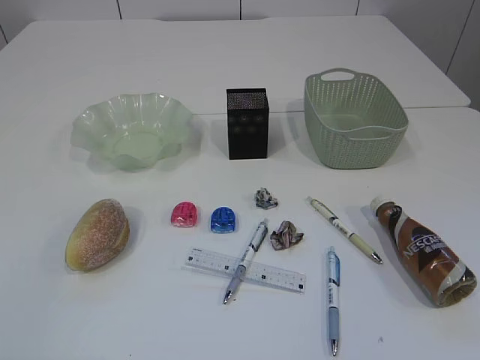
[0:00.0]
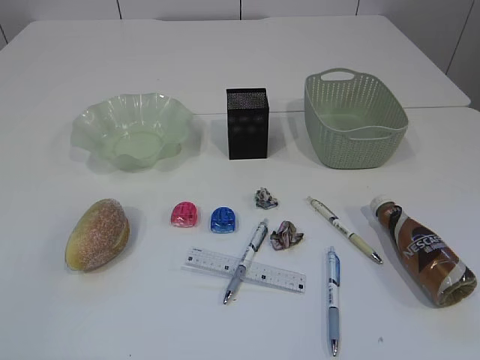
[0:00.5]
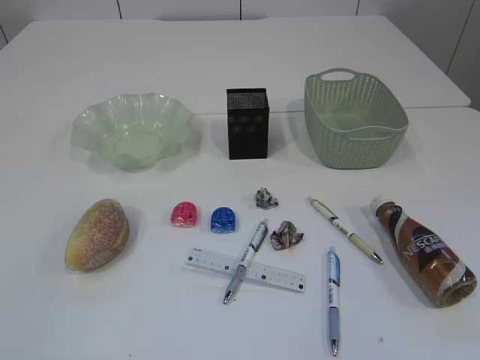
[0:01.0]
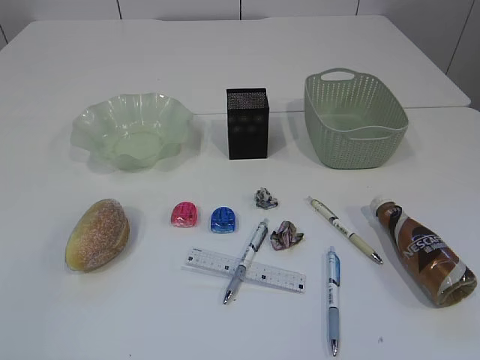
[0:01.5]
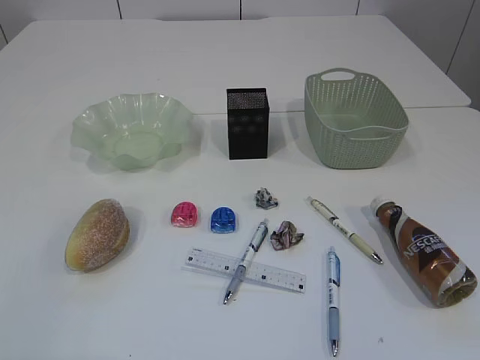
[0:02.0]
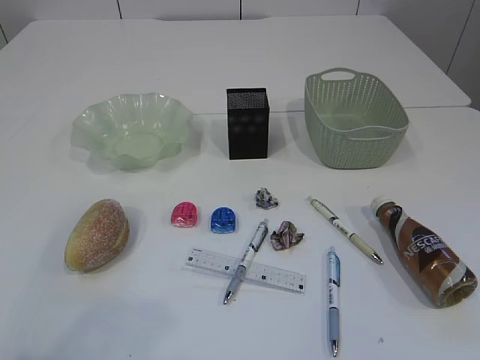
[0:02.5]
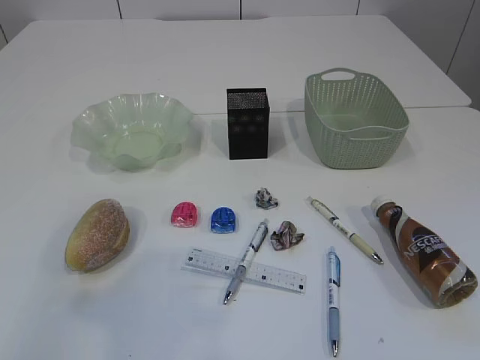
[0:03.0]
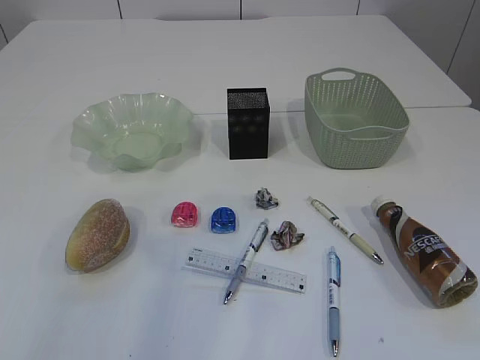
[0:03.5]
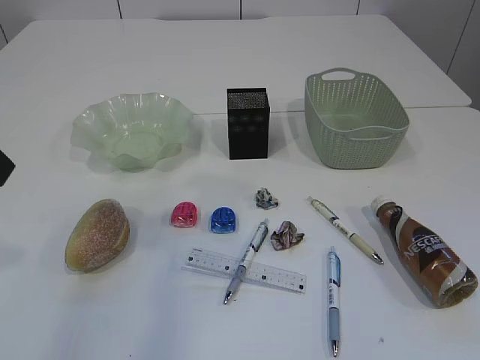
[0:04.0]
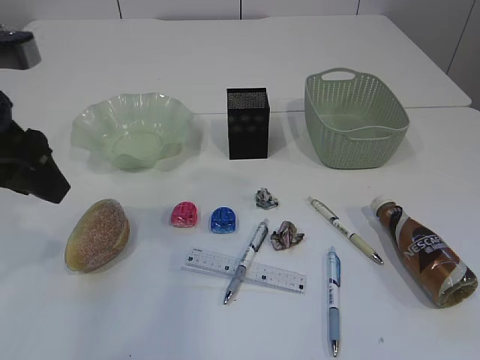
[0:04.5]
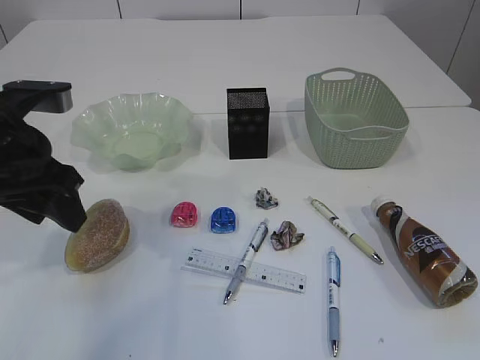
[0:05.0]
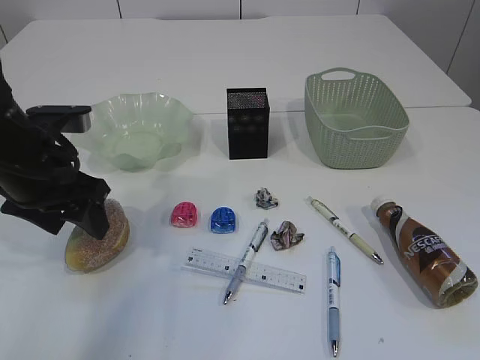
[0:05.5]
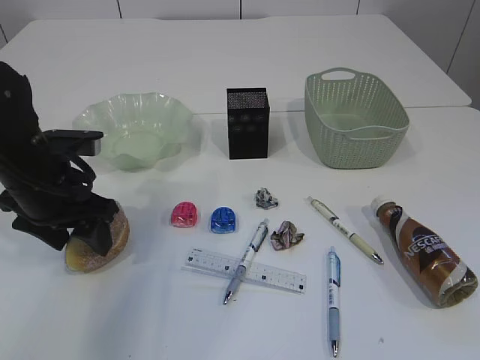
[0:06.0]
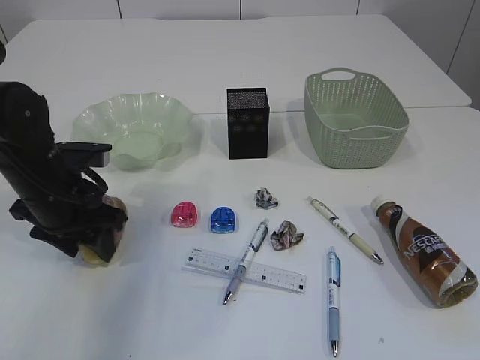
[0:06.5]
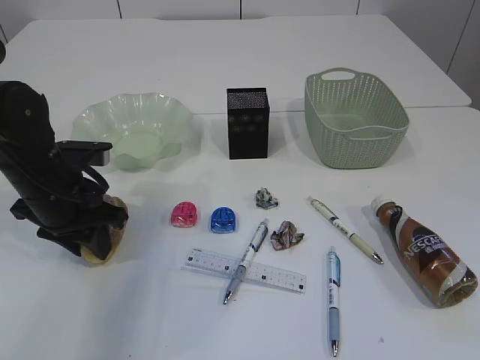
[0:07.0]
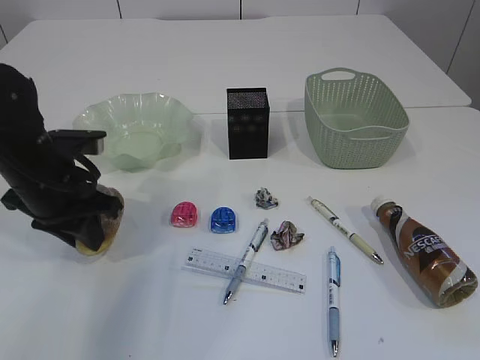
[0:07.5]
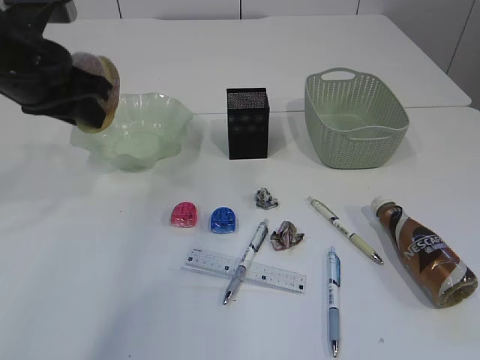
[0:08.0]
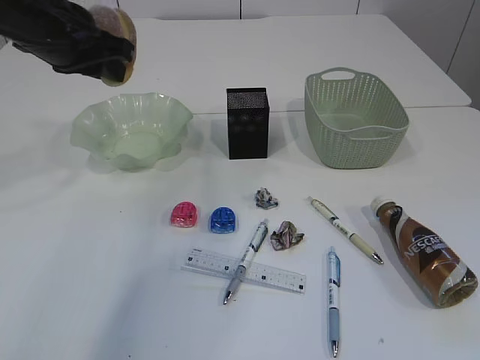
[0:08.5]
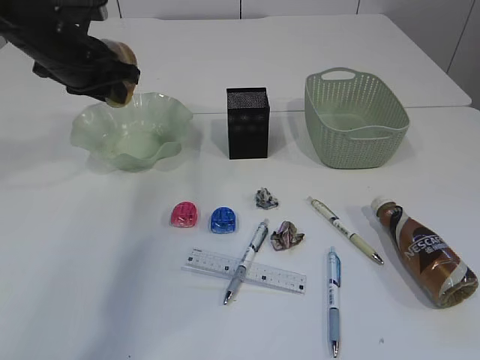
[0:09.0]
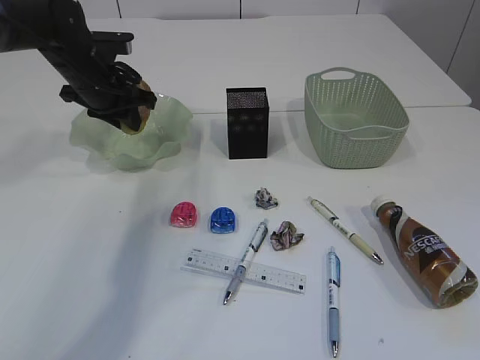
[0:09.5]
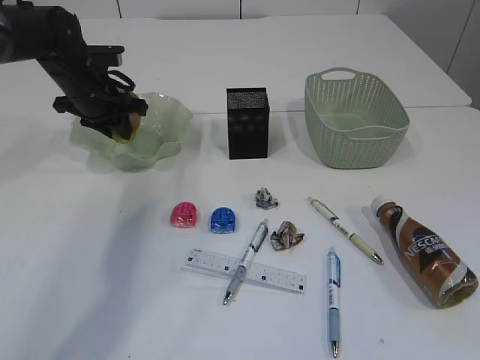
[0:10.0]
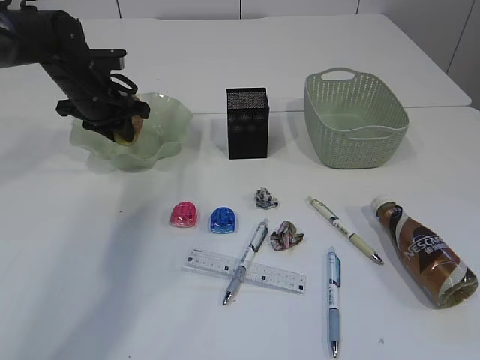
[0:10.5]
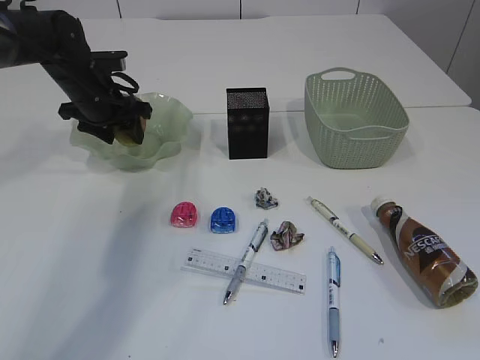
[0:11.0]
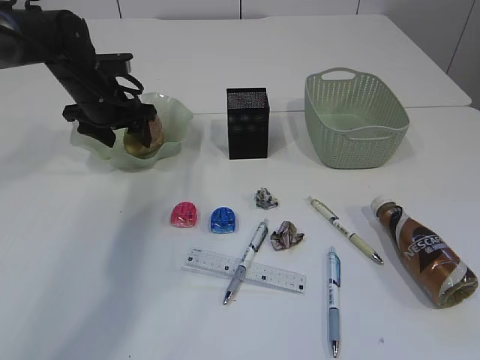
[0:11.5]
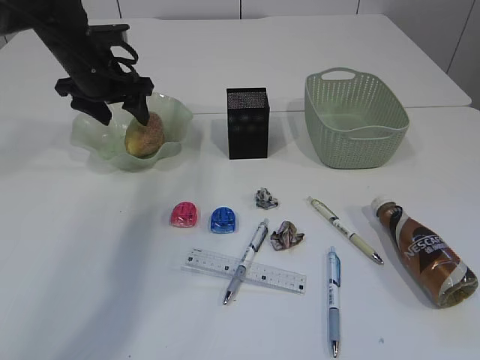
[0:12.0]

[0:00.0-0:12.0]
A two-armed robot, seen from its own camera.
0:02.0 to 0:04.0: The left gripper moves forward, some 25 cm.
0:04.0 to 0:06.0: The left gripper is displaced downward and forward by about 20 cm.
0:06.0 to 0:08.0: The left gripper is displaced upward by roughly 10 cm, and closes up.
0:08.0 to 0:10.0: The left gripper moves forward and downward, approximately 20 cm.
0:10.0 to 0:12.0: The left gripper opens.

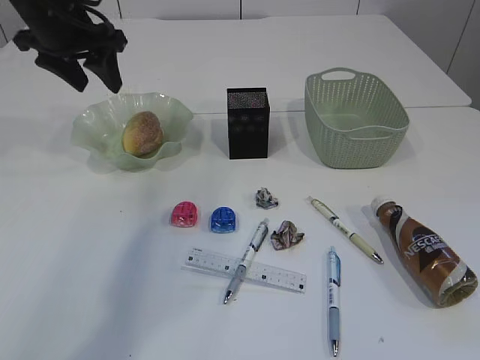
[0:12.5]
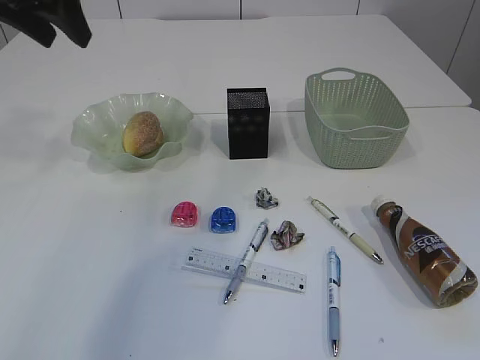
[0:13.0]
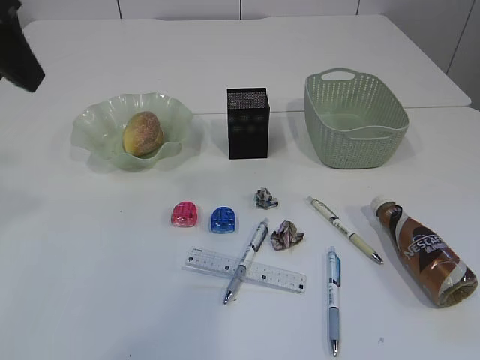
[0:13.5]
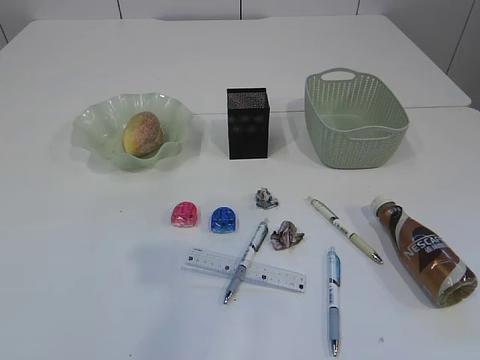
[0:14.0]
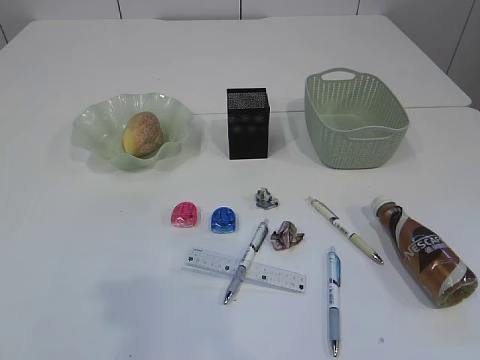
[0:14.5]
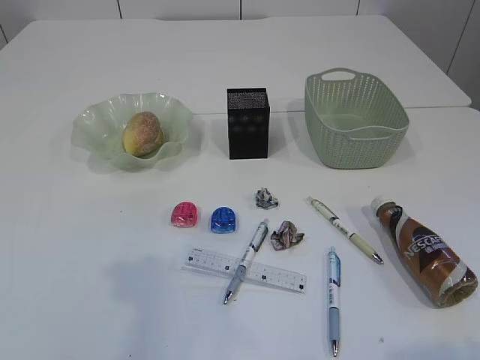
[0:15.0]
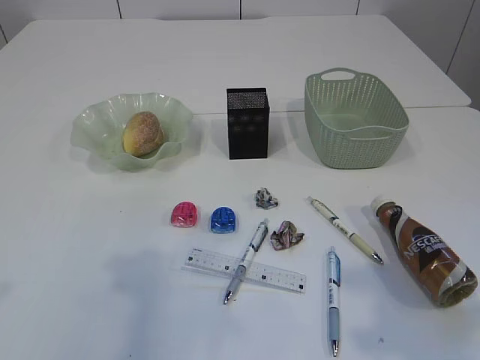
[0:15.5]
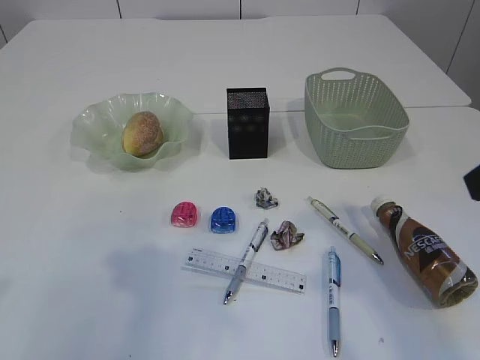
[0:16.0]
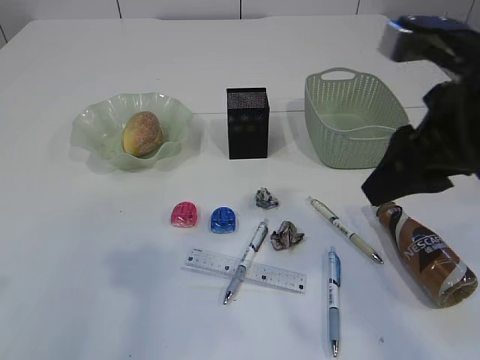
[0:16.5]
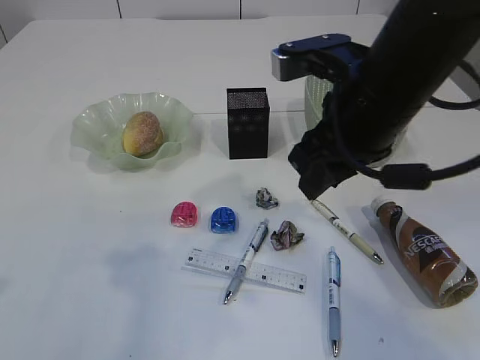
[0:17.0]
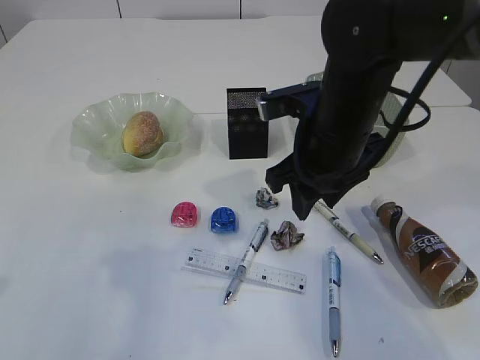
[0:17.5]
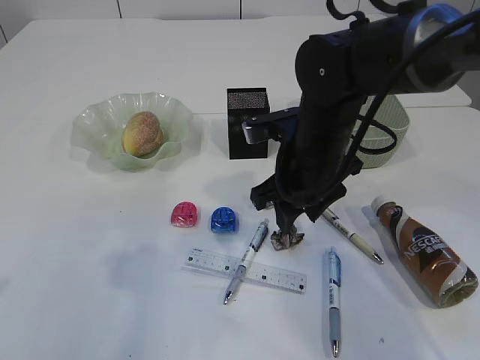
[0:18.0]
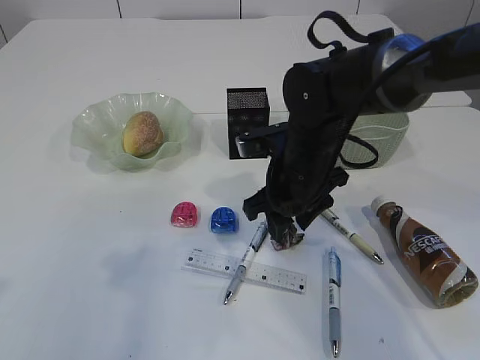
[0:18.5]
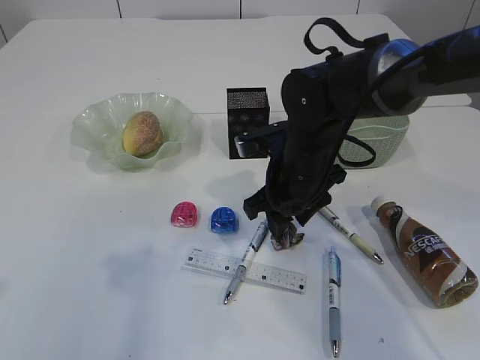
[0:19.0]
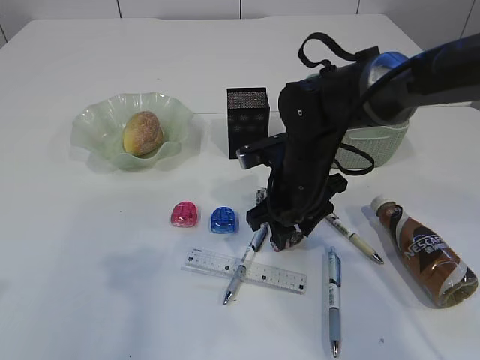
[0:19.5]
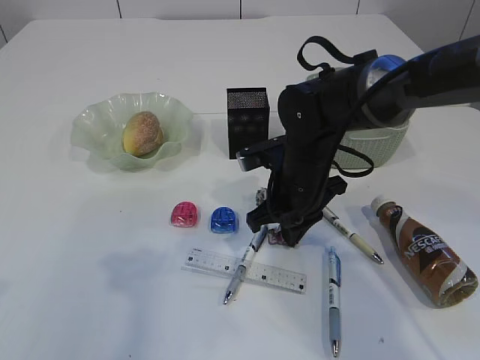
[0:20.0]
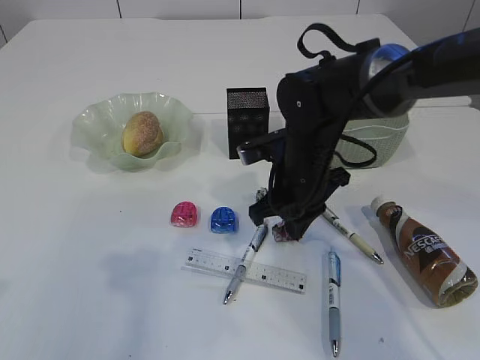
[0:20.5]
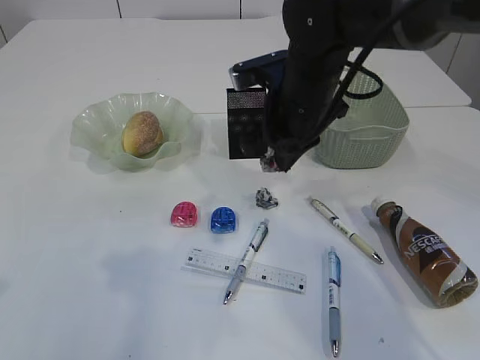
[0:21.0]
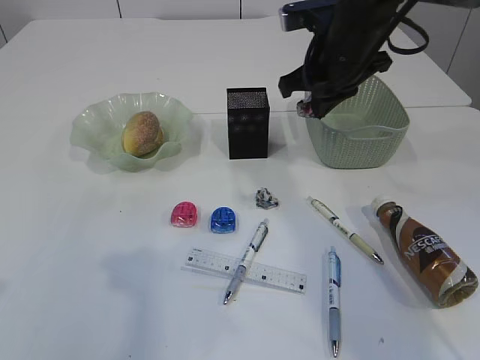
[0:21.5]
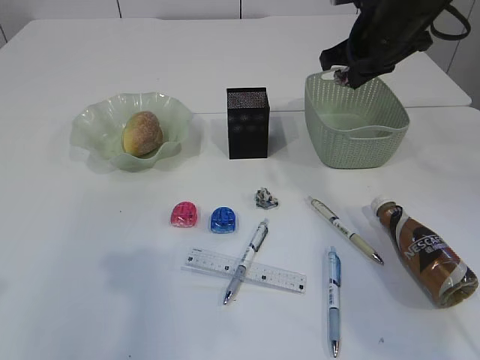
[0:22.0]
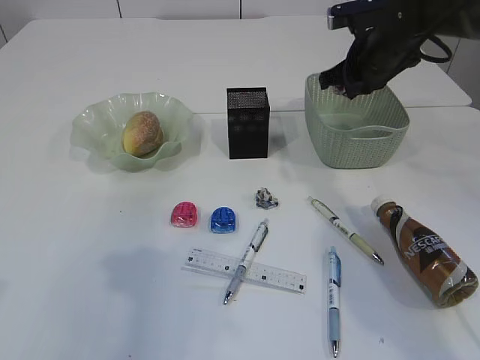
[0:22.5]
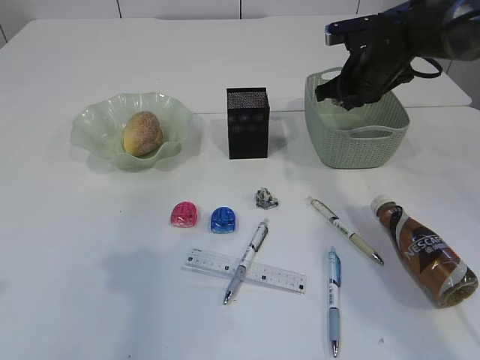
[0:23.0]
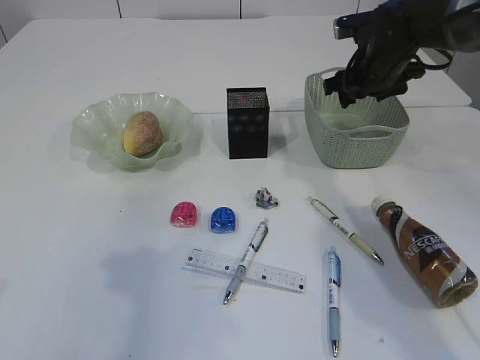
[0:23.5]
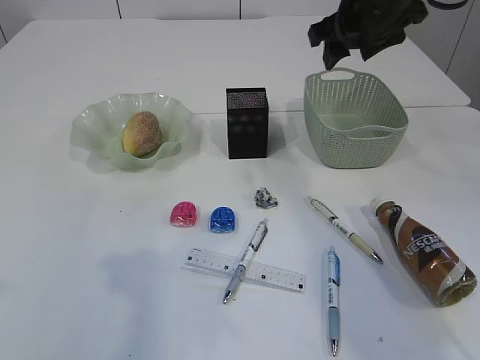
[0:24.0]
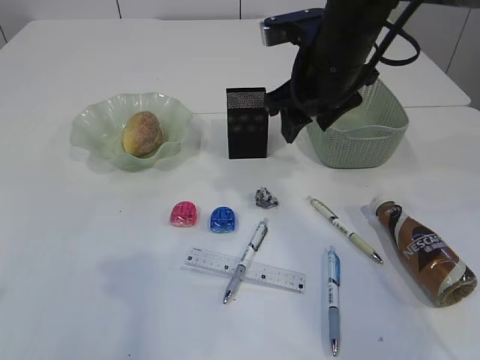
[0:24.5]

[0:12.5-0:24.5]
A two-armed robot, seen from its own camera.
Step, 0:12.5 to 0:21.0: Pick up the waste paper.
Step, 0:21.5 to 0:23.5: Place the waste paper in the basket.
0:12.5 to 0:14.5: The left gripper moves backward, roughly 35 cm.
0:14.5 to 0:16.5: The right gripper shifts approximately 25 cm forward.
0:16.5 to 0:18.5: The right gripper heads downward, forward and to the left, covering about 25 cm.
0:18.5 to 0:20.5: The right gripper closes its fingers.
0:20.5 to 0:22.5: The right gripper is displaced to the right, forward and upward by roughly 20 cm.
0:22.5 to 0:24.5: The right gripper shifts approximately 15 cm to the left and backward, goes upward and returns, about 10 cm each way, and opens up.

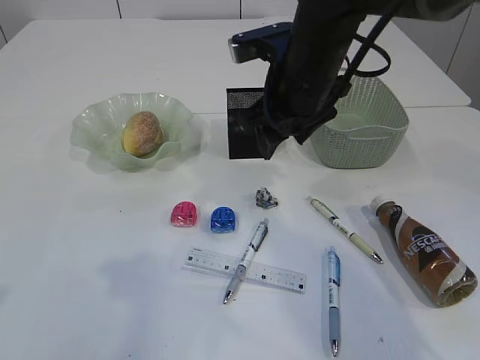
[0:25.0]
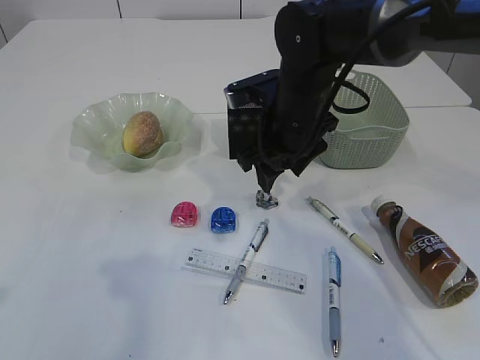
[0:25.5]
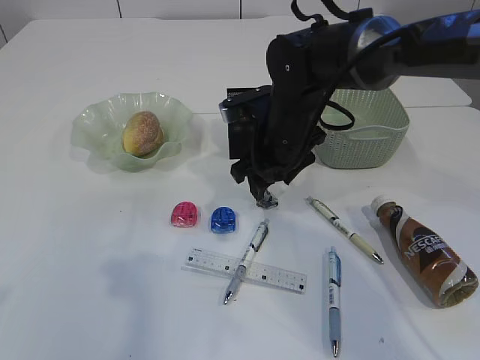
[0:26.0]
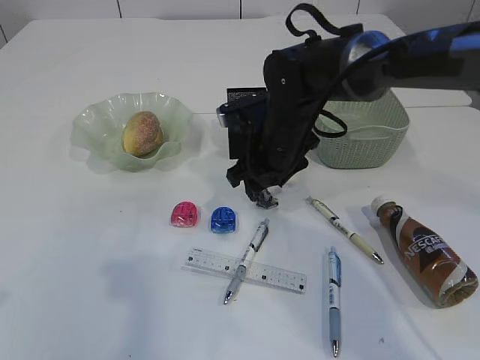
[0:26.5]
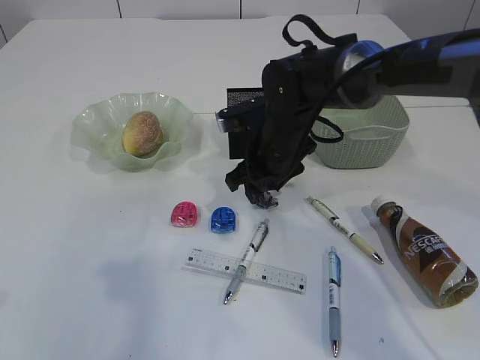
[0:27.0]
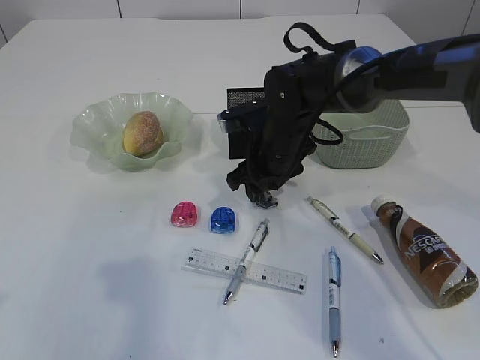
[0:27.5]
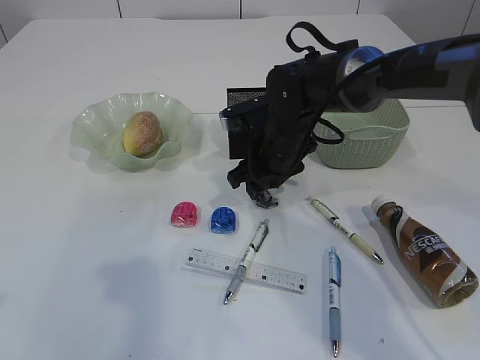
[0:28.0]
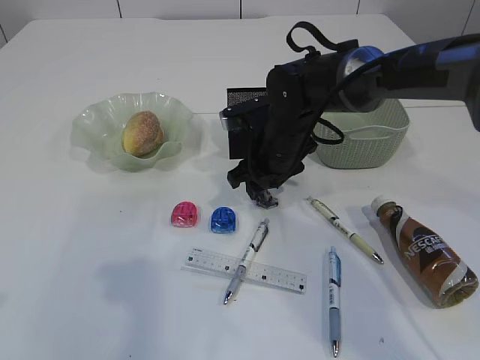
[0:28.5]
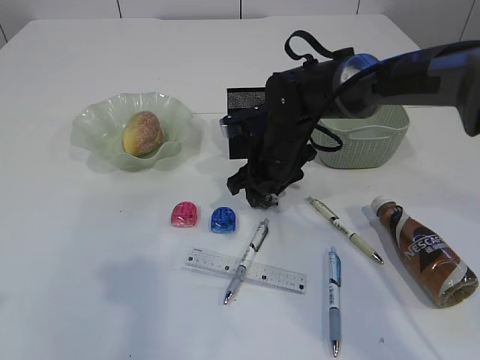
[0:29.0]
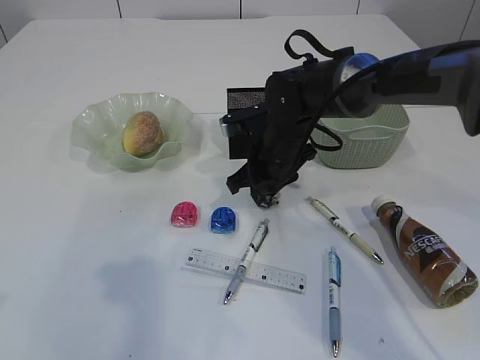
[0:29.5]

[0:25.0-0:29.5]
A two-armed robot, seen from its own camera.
0:25.0 to 0:27.0: The right gripper heads downward, covering roughly 10 cm.
0:27.0 to 0:29.5: The grippers stay close to where they were, moving slightly.
